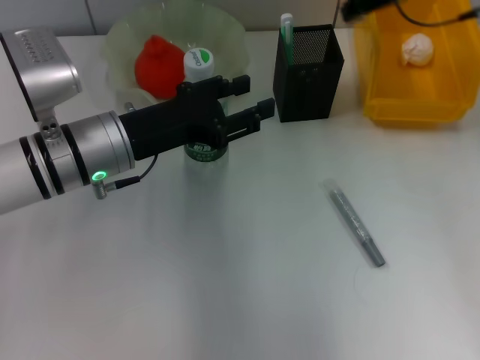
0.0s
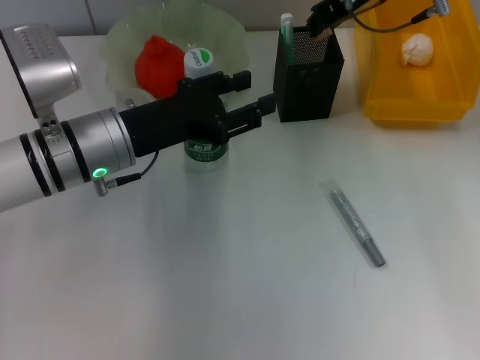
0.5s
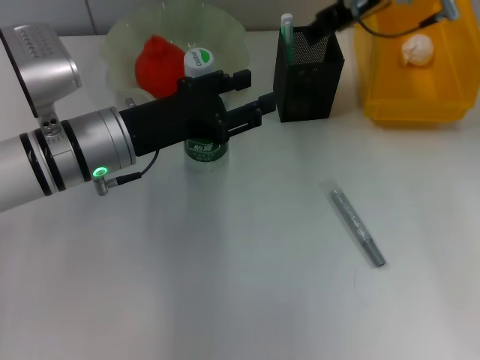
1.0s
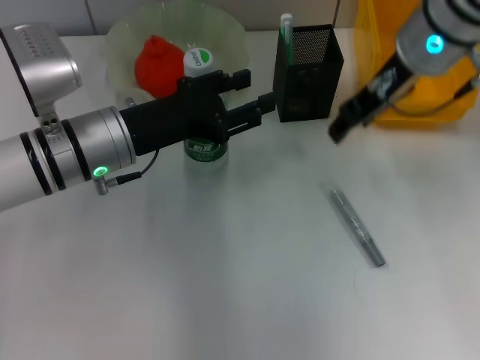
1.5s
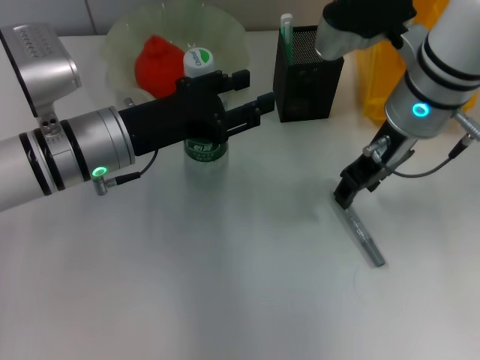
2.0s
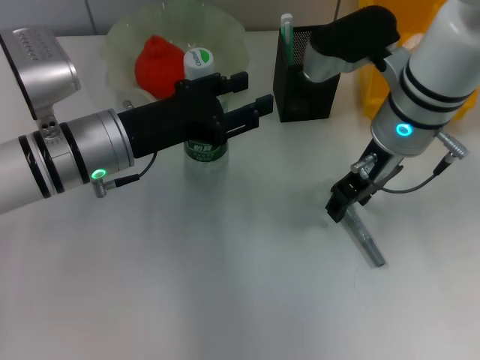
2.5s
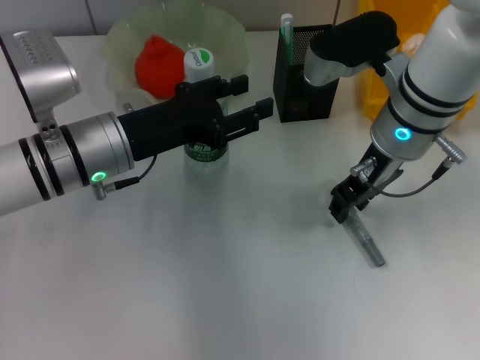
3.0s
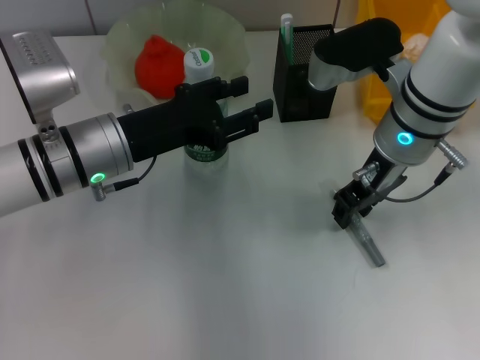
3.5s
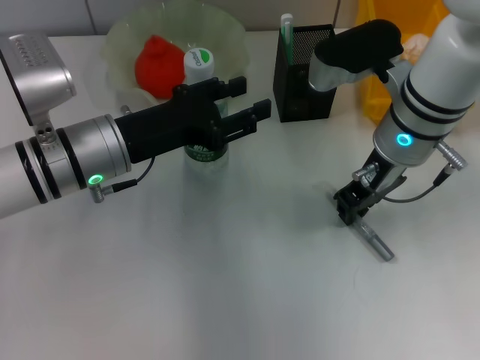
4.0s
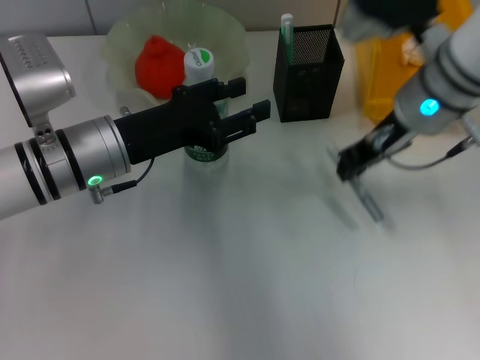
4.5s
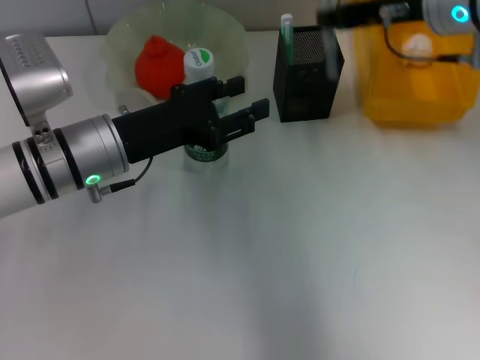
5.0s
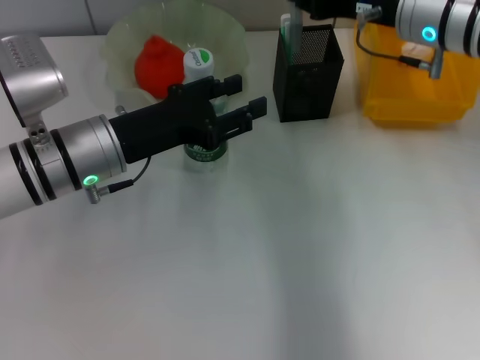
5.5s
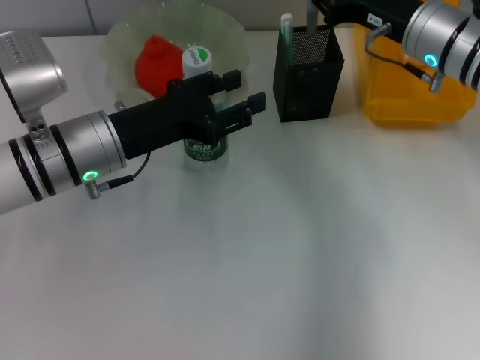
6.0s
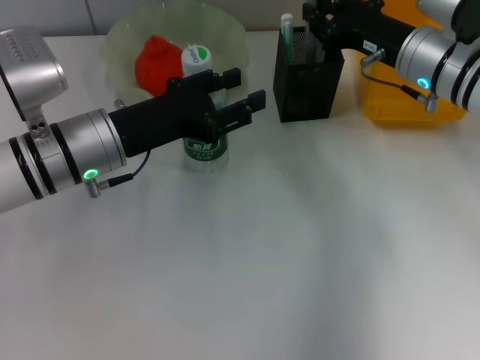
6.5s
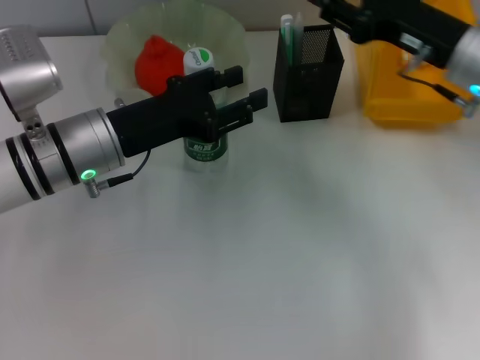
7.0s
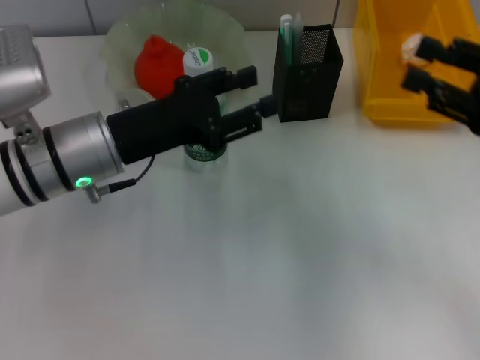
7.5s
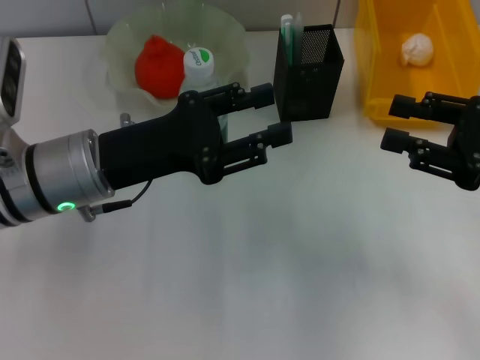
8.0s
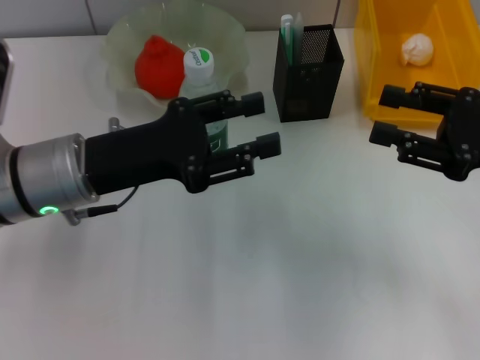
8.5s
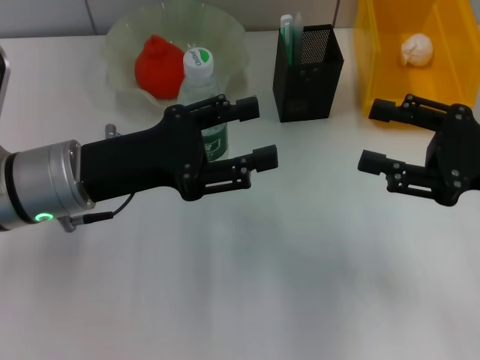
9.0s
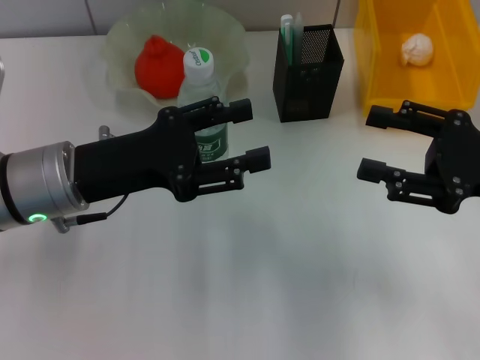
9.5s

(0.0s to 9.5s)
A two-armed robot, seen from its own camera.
Step, 1.0s - 4.0s: Grab the gray glue with the right hand.
Step, 4.5s - 6.5s: Place the gray glue into the pen holder with the right hand.
0.0s - 2.0s: The right gripper is displaced downward and backward by about 10 cm, and opens up.
2.0s - 4.0s: The right gripper closes up.
4.0s - 5.5s: The right gripper changes place by some 5 cm.
5.5s - 7.5s: The right gripper heads backward and to the right, covering approximately 20 cm, and opens its fingers.

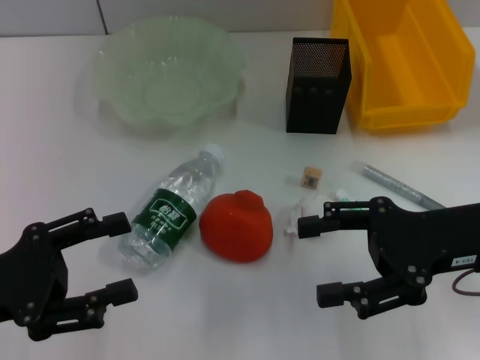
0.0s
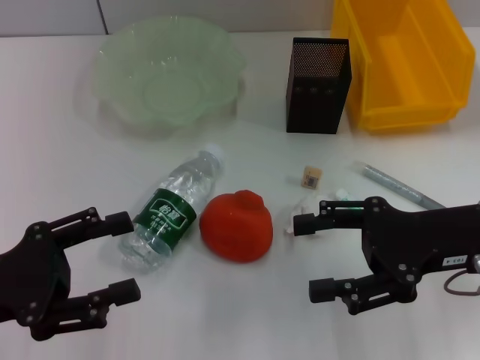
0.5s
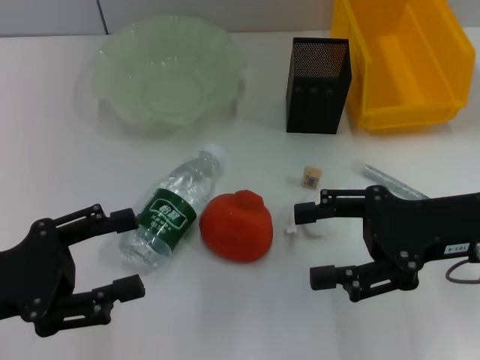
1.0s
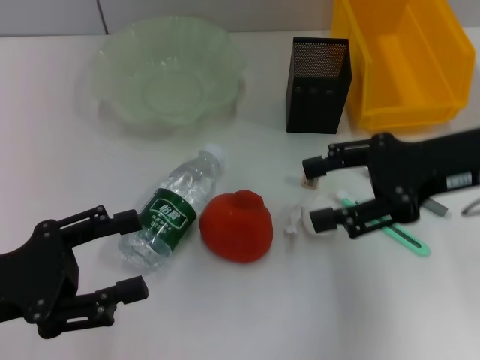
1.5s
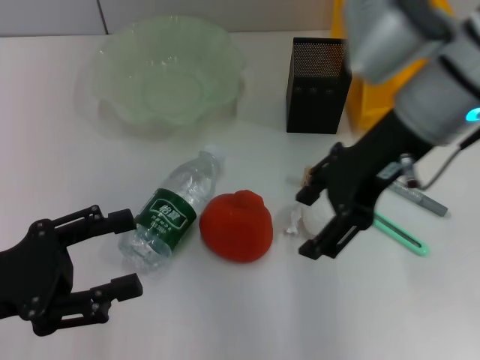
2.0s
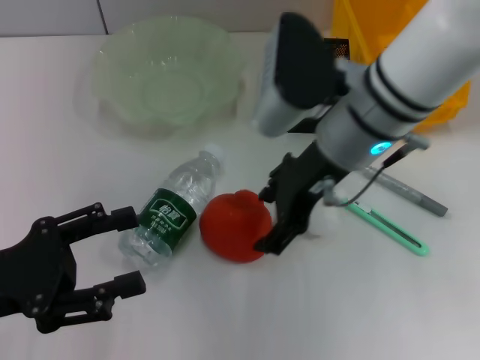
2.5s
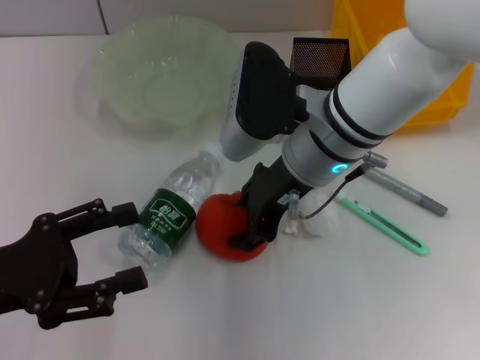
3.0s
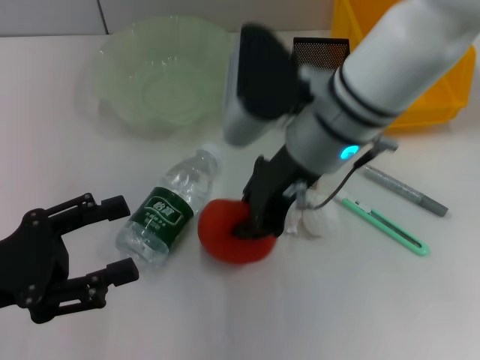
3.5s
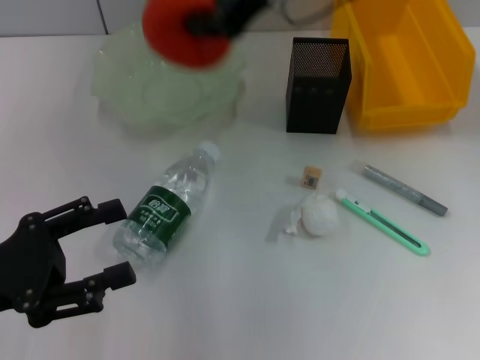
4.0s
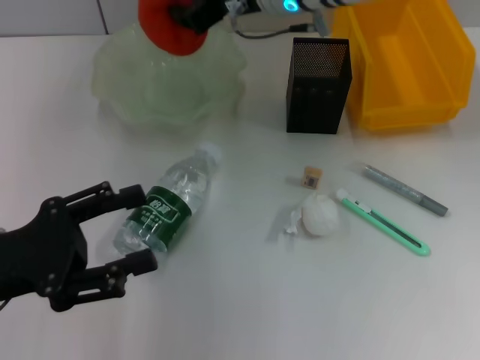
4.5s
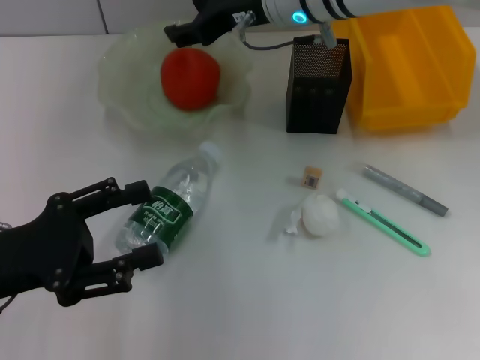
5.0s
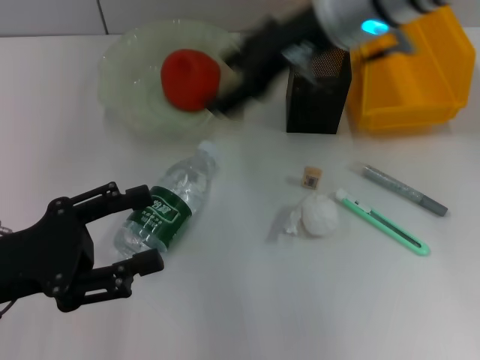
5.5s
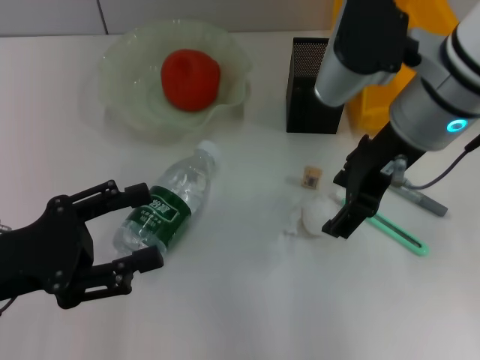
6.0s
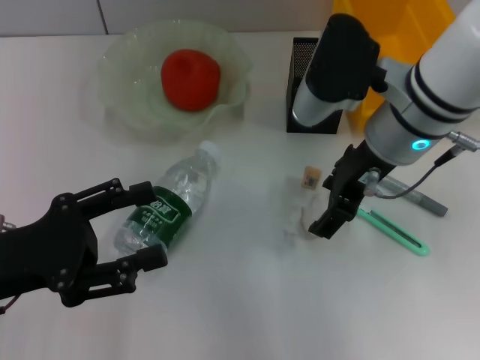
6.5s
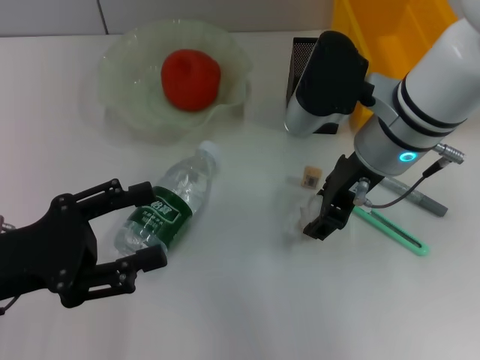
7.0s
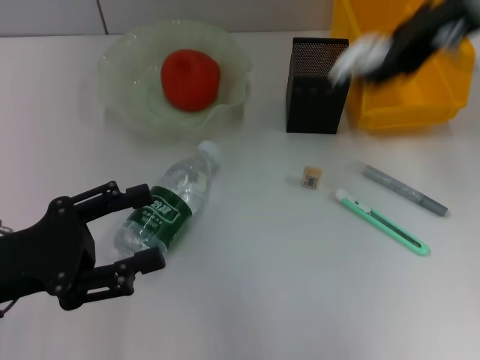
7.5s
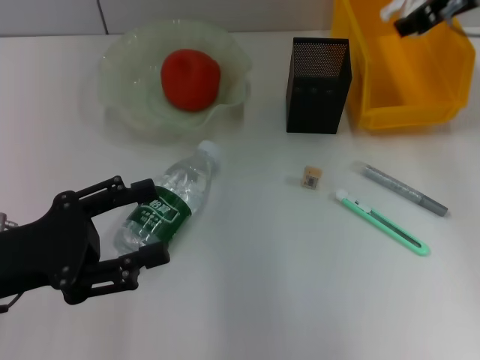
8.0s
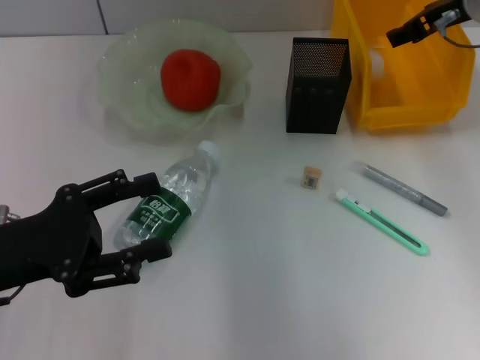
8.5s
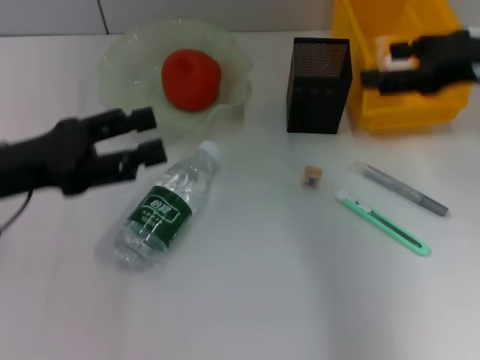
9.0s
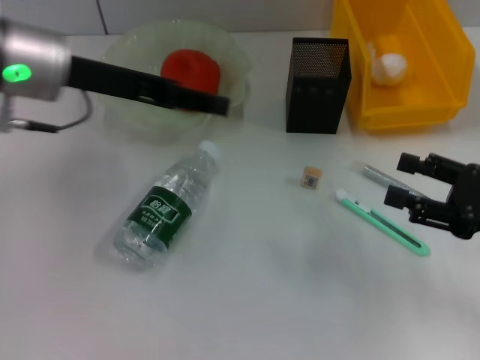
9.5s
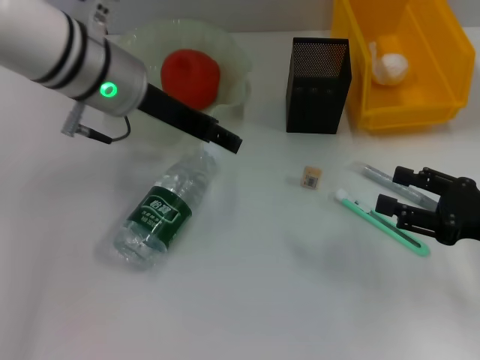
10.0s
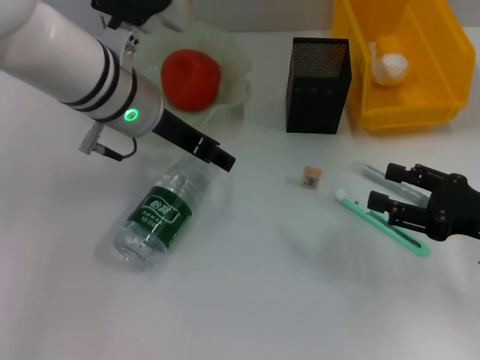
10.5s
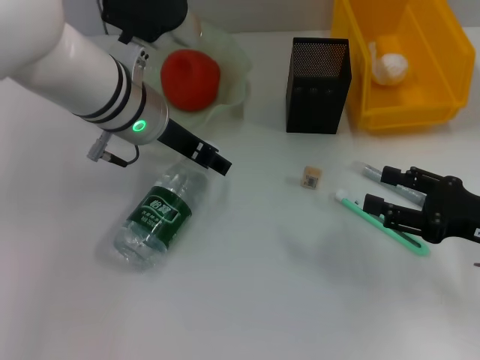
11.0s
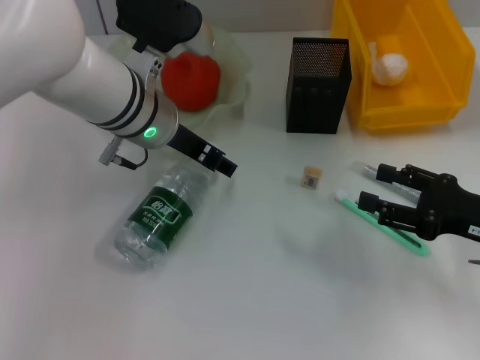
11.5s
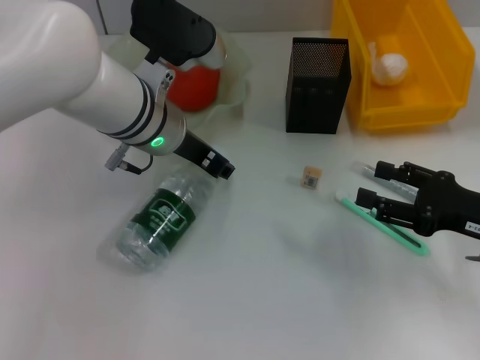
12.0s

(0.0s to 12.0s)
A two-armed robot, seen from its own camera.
Step, 0.0s - 3.0s: Grab the orange with the right hand.
Step, 3.5s - 4.5s: Pass the orange from the right hand to the left hand.
Step, 5.0s - 6.5s: Grab the paper ball with the right hand.
Step, 7.0s - 8.0s: Place the paper ball into the trash can with the right hand.
0.0s - 2.0s: The right gripper heads upward, to the left and forward, covering some 15 cm.
2.0s - 4.0s: The right gripper travels forward, to the left and upward by some 10 cm, and closes.
4.0s - 6.0s: The right gripper moves downward, backward and to the right, some 15 cm, and opens up.
6.0s - 8.0s: The right gripper swings up and down, about 15 cm each way, with 2 reversals.
8.0s - 10.0s: The left gripper moves forward, to the right and upward, roughly 25 cm. Meanwhile the right gripper moves backward, downward and to the right, about 25 cm.
10.0s - 12.0s: The left gripper moves downward, approximately 5 cm.

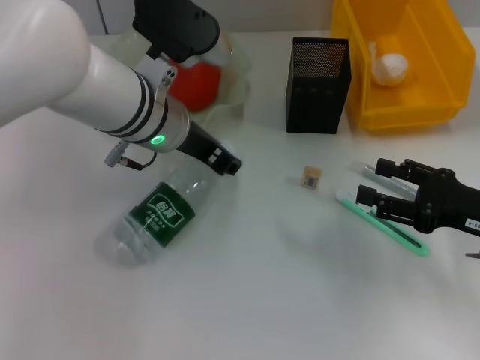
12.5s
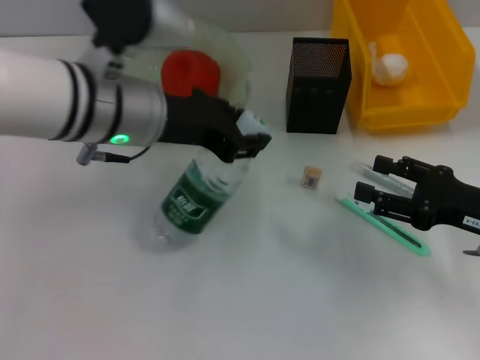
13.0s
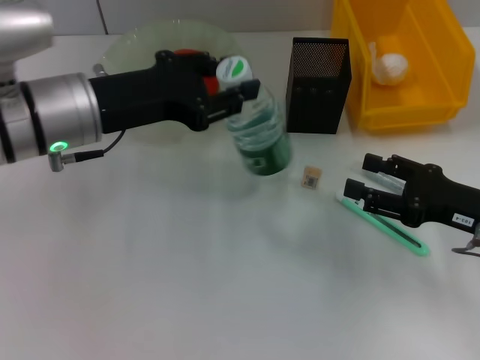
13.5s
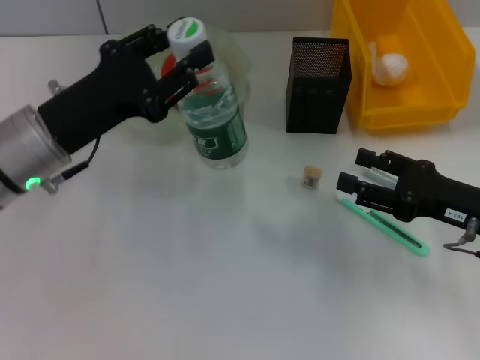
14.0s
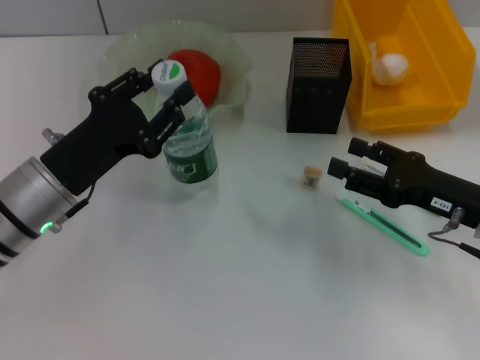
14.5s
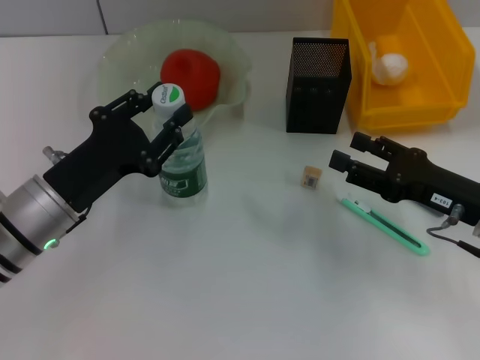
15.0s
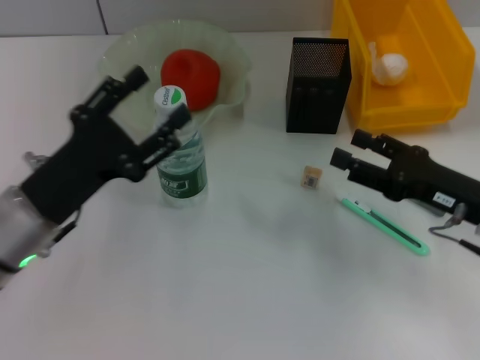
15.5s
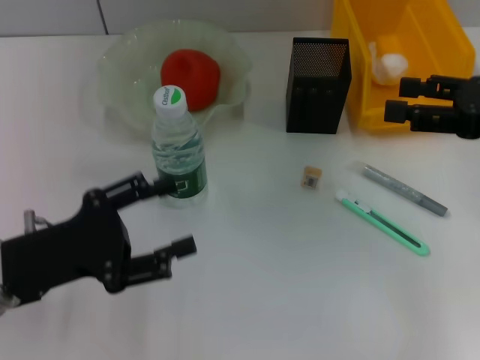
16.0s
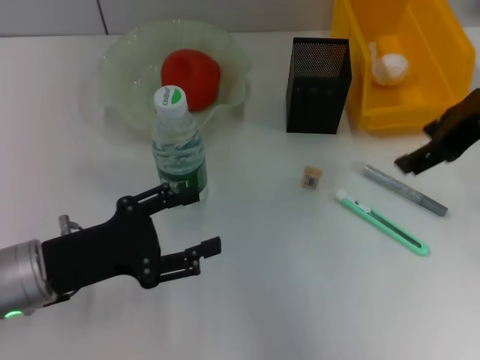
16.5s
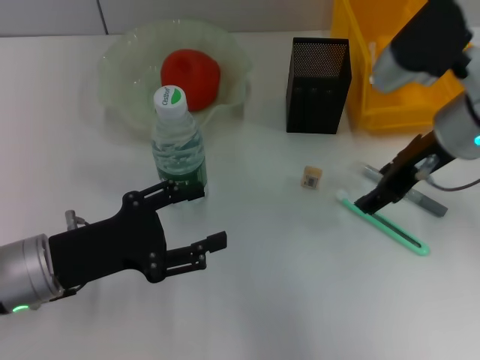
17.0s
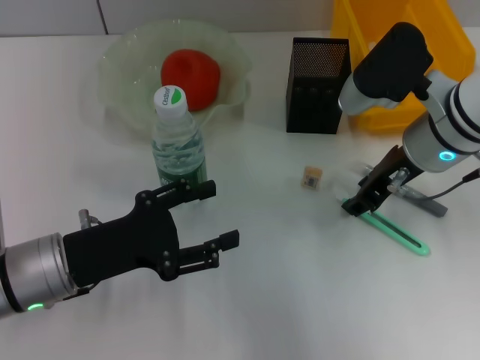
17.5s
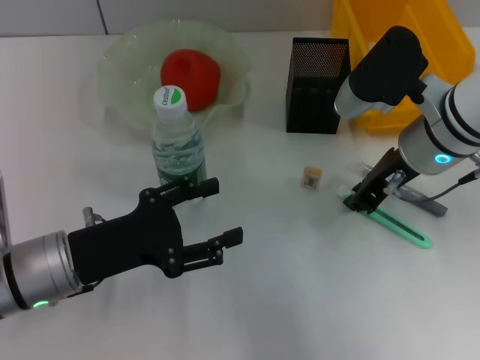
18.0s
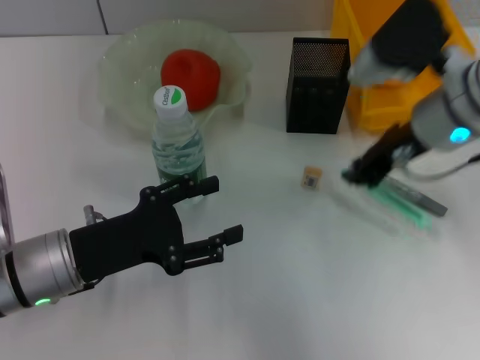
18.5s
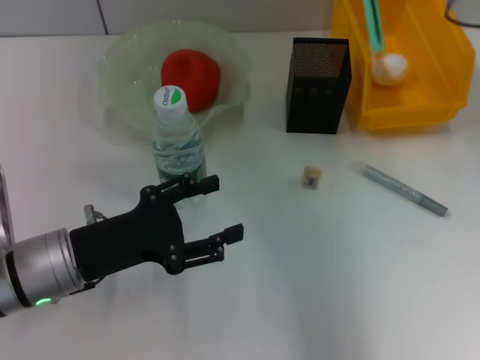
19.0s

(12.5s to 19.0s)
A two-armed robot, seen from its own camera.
Step, 12.5s - 15.0s: Place the water bottle on the table with the left hand.
Step, 15.5s - 18.0s: Grab the blue utility knife with the right hand.
12.5s - 14.5s: The left gripper shifts some 15 cm to the left, backward and downward.
14.5s - 17.0s: The left gripper moves approximately 5 cm, and opens its fingers; the right gripper shifts roughly 15 cm upward, forward and to the left.
17.0s - 19.0s: The right gripper shifts some 10 cm upward, and closes.
